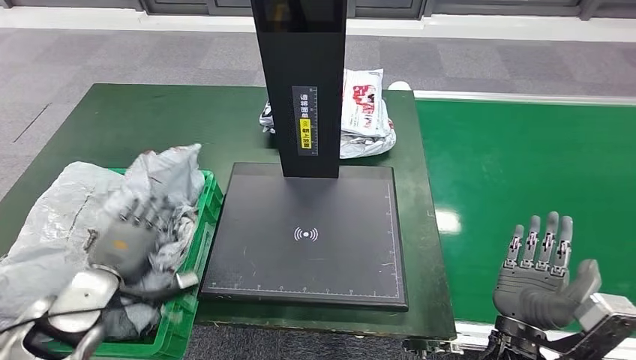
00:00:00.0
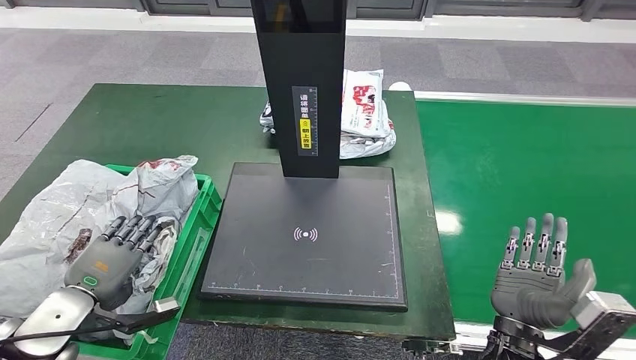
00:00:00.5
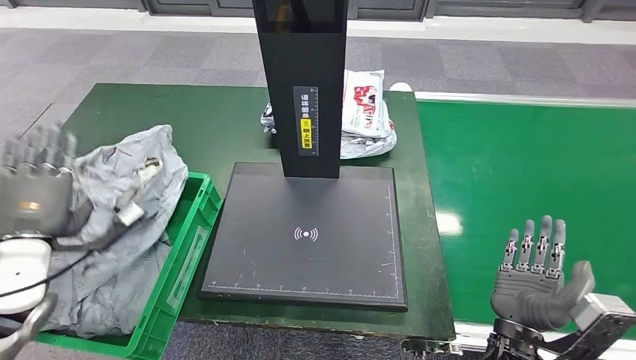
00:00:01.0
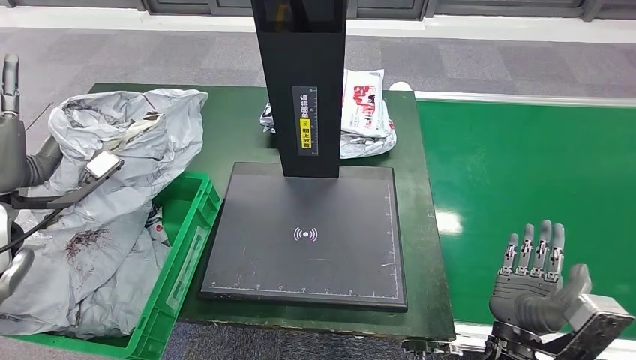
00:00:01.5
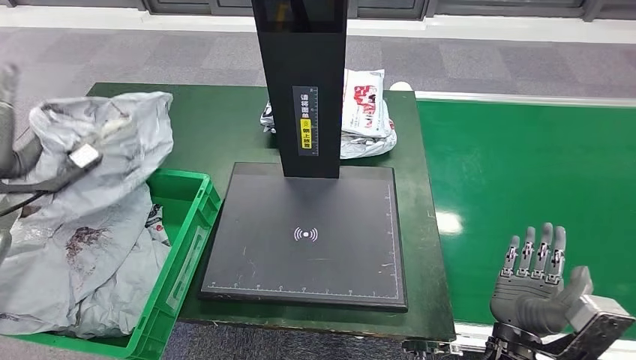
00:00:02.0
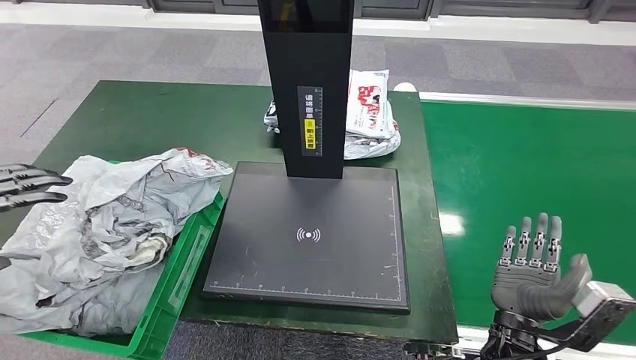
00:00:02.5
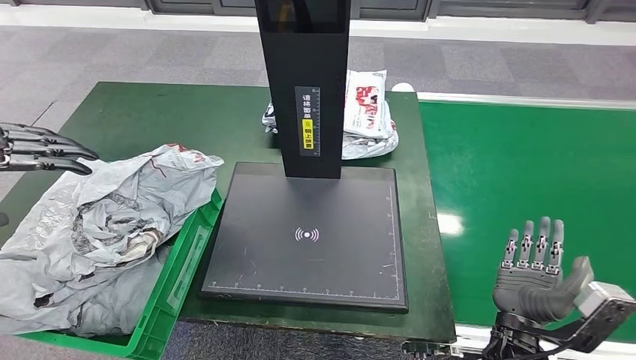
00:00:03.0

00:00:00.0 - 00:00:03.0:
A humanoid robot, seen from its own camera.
Step, 00:00:00.0 - 00:00:03.0: Place the parcel into the delivery box.
